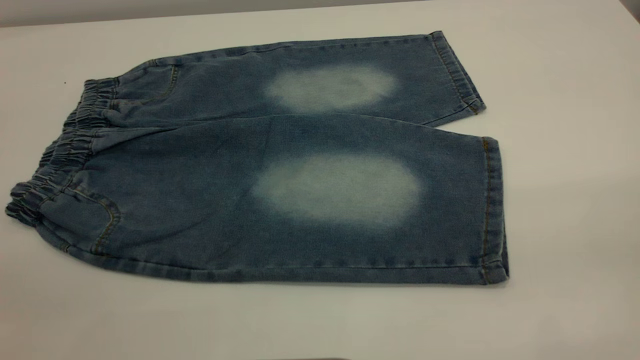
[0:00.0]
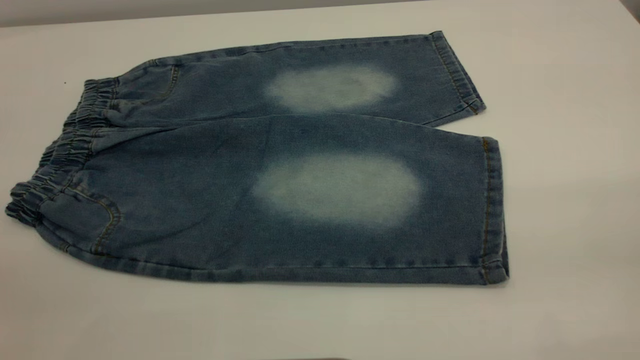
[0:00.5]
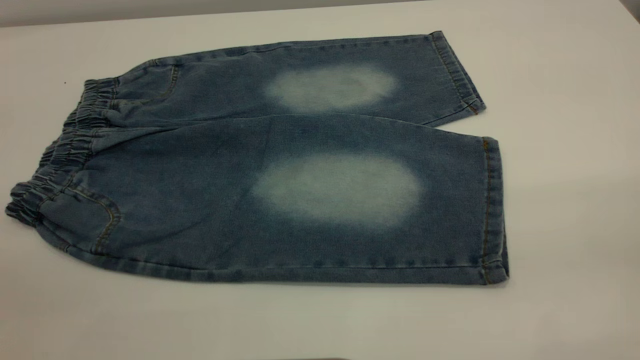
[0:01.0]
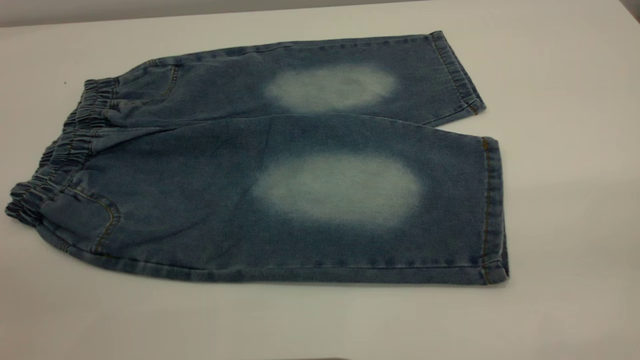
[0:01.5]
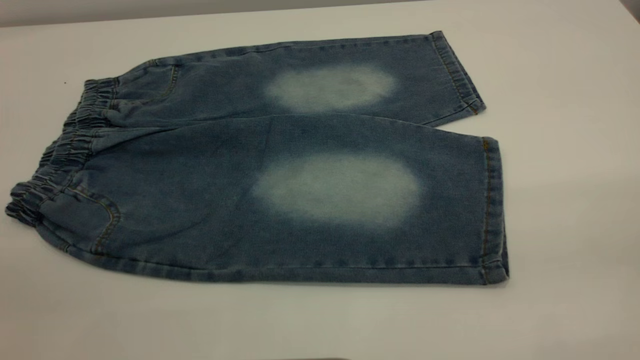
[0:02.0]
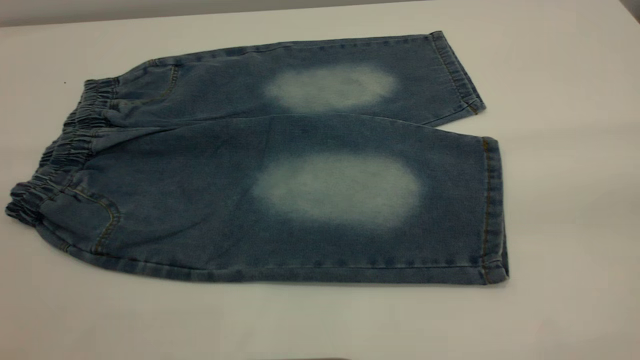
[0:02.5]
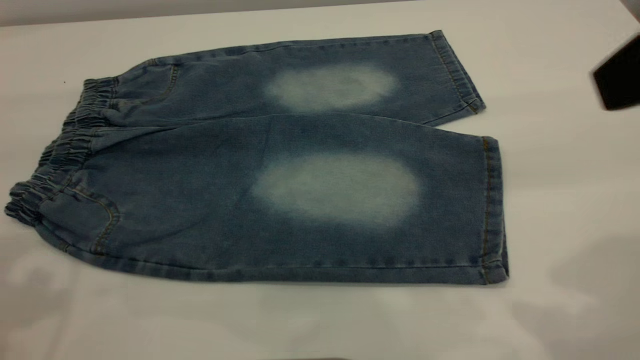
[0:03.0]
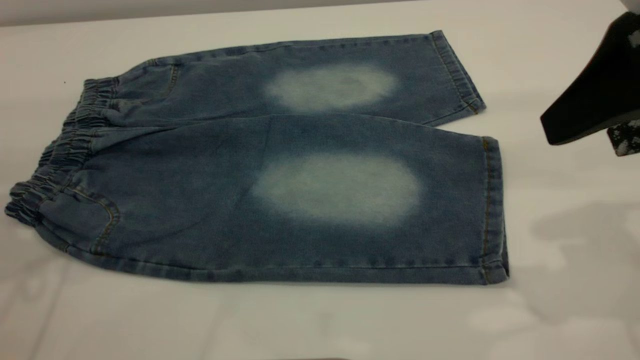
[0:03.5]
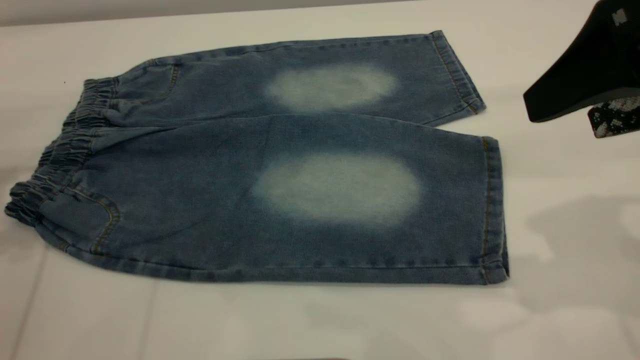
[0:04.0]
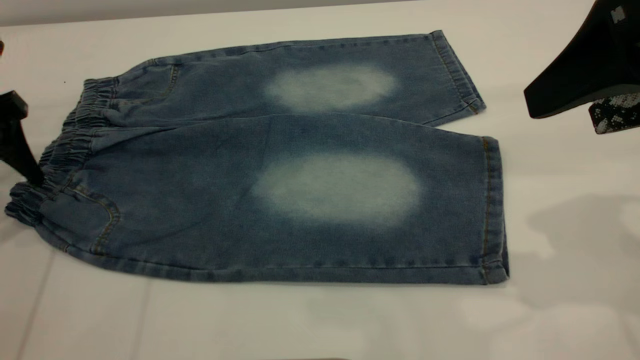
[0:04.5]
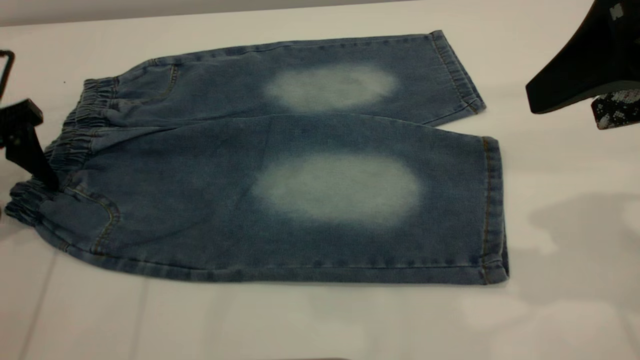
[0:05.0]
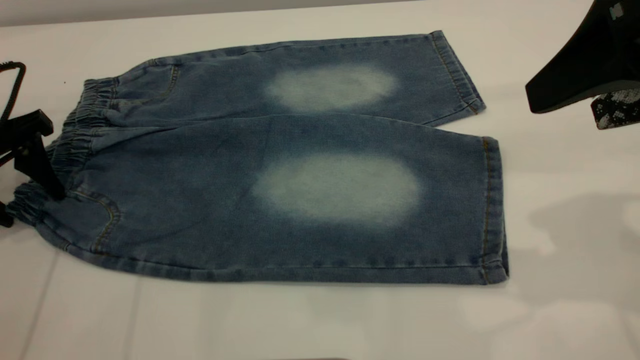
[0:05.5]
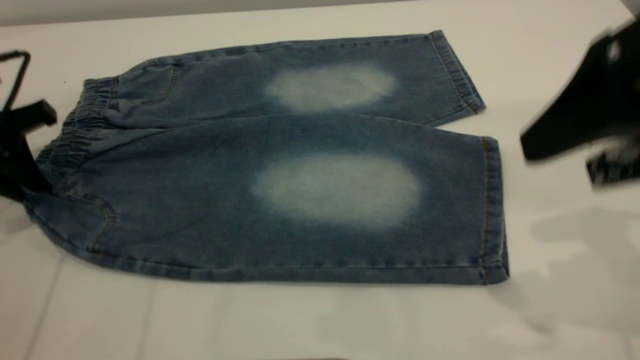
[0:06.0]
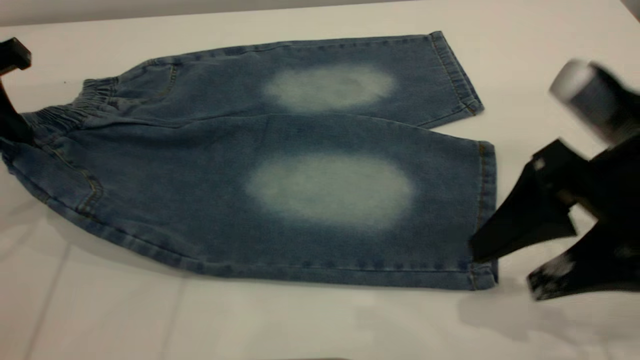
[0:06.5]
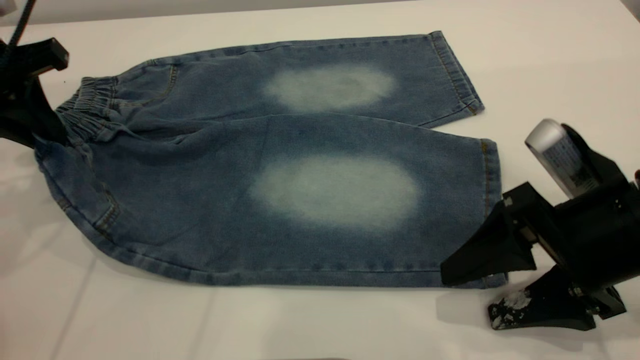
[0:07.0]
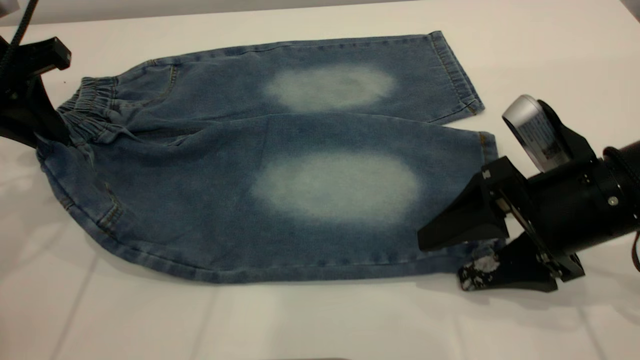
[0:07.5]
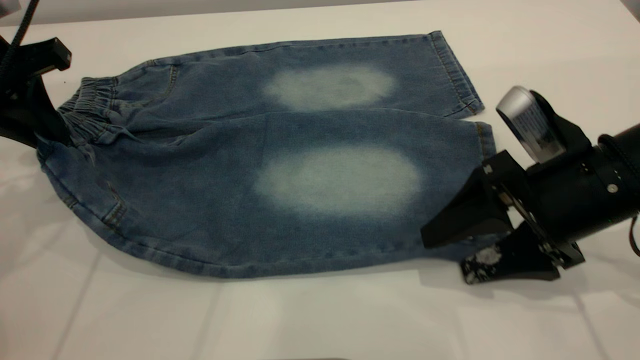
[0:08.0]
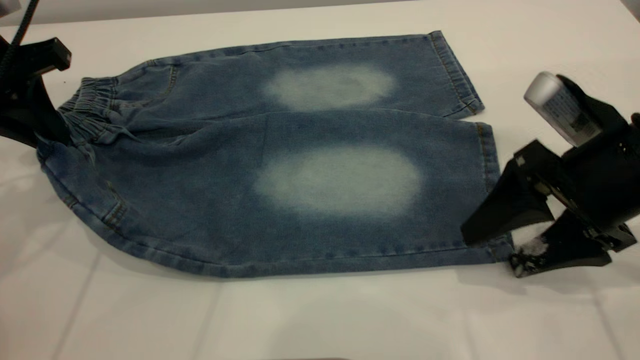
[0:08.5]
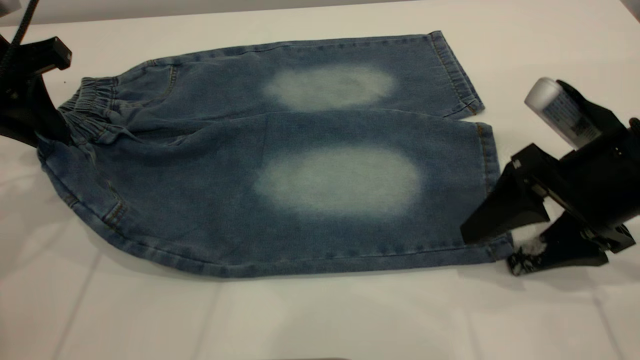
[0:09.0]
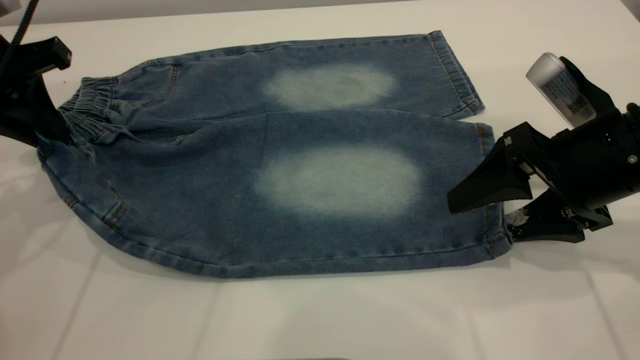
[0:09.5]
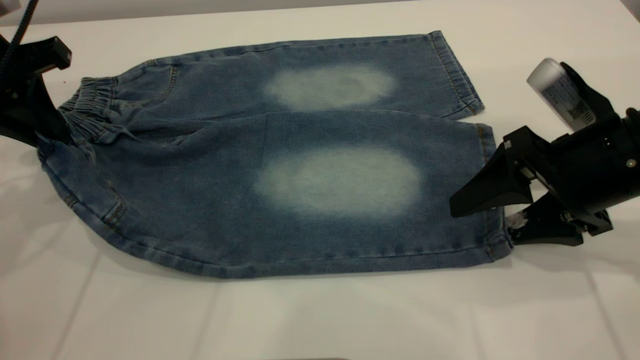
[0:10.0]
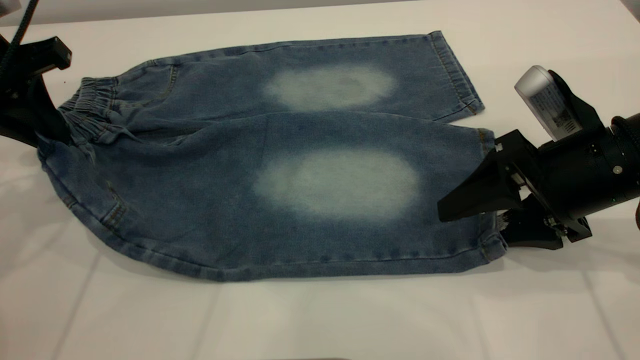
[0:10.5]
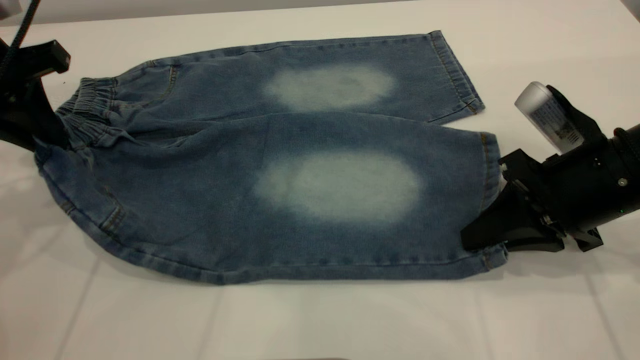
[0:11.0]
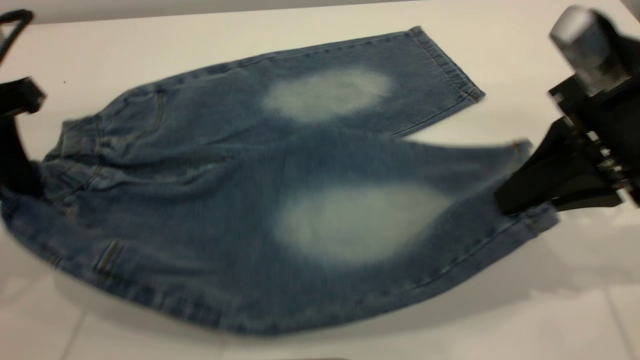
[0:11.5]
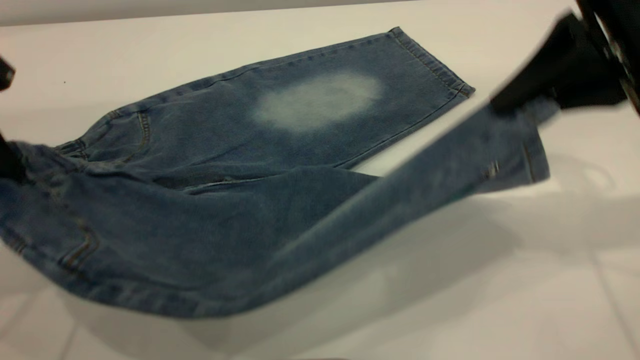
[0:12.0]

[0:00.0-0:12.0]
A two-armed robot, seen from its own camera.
0:00.0 to 0:02.0: Both grippers stay about where they are.
0:02.0 to 0:04.0: The right gripper moves forward, about 20 cm.
0:04.0 to 0:06.0: The left gripper changes place by roughly 5 cm, and closes its fingers.
0:06.0 to 0:08.0: The right gripper shifts roughly 15 cm downward. Meanwhile the left gripper heads upward, covering some 5 cm.
0:08.0 to 0:10.0: The grippers stay close to where they were, moving slightly.
0:10.0 to 0:12.0: The right gripper moves upward, about 15 cm, and closes. Meanwhile the left gripper travels backward by some 5 cm.

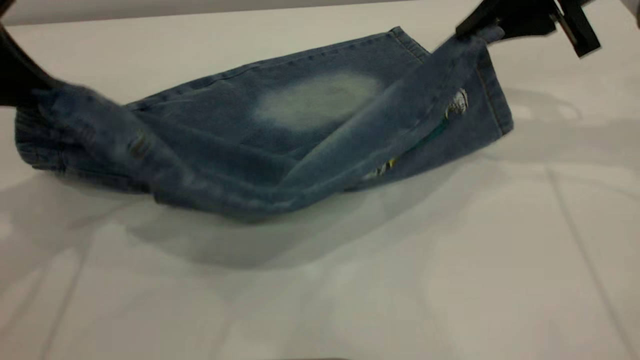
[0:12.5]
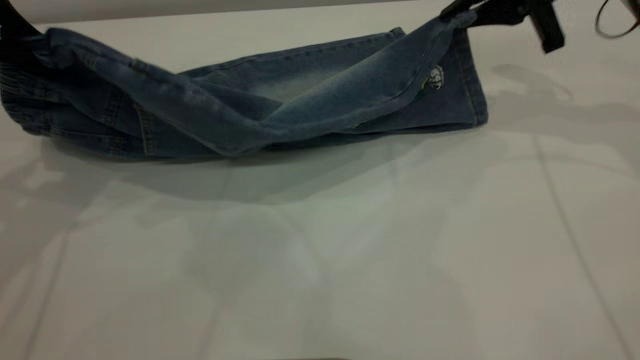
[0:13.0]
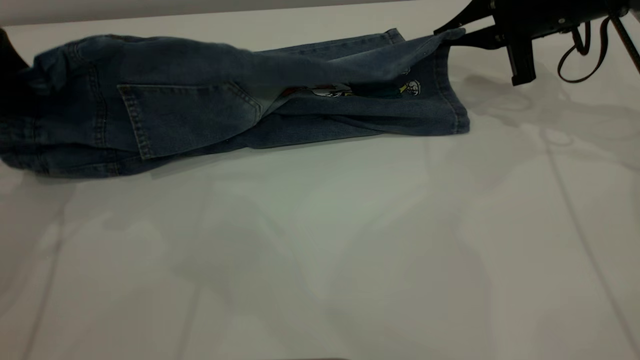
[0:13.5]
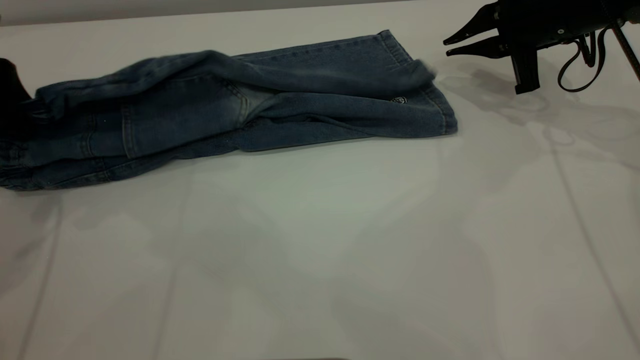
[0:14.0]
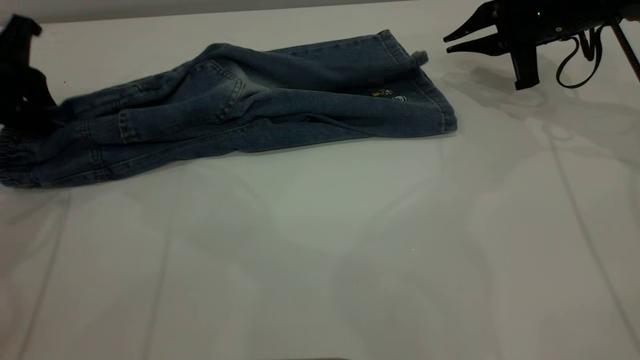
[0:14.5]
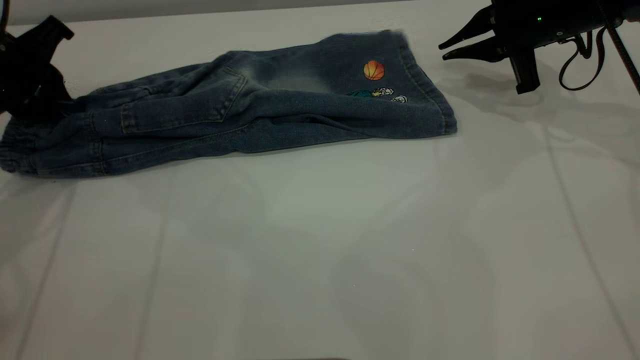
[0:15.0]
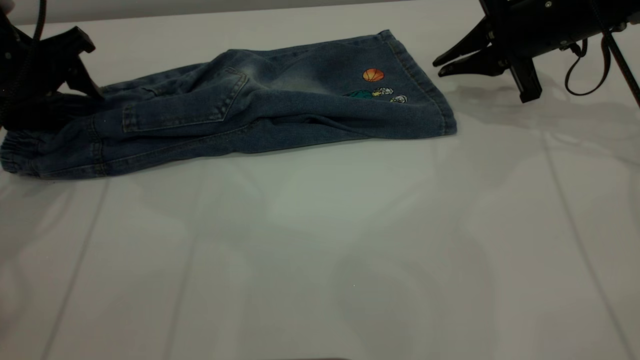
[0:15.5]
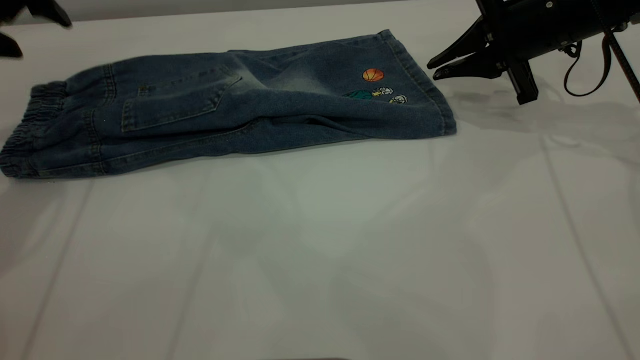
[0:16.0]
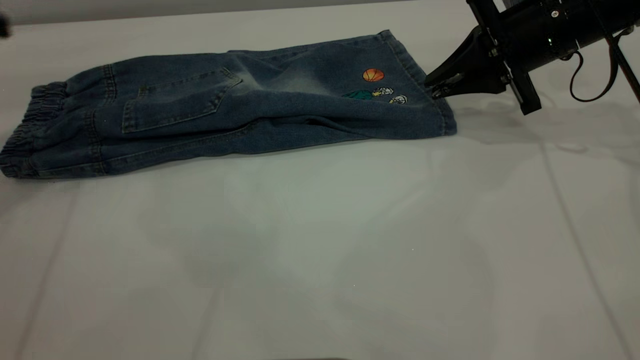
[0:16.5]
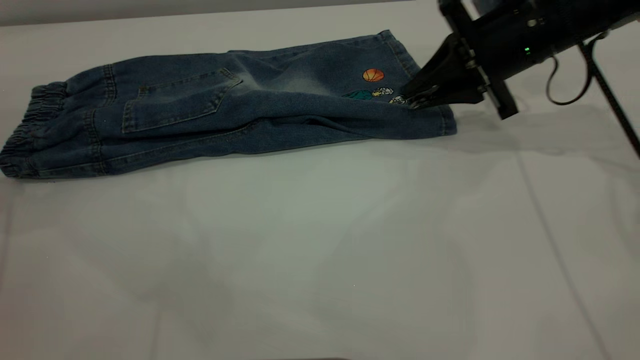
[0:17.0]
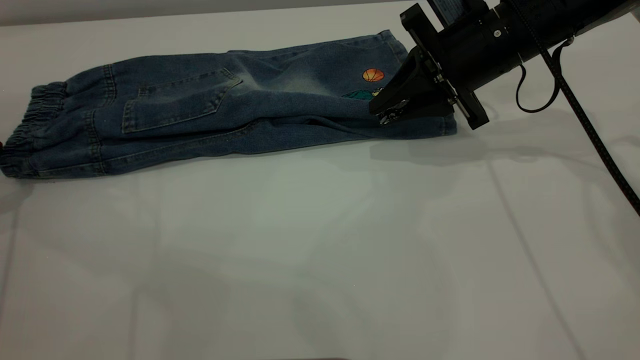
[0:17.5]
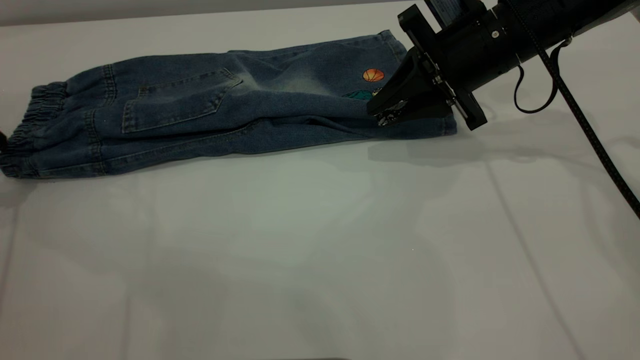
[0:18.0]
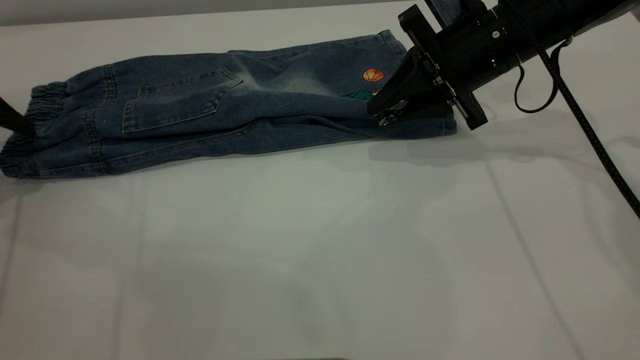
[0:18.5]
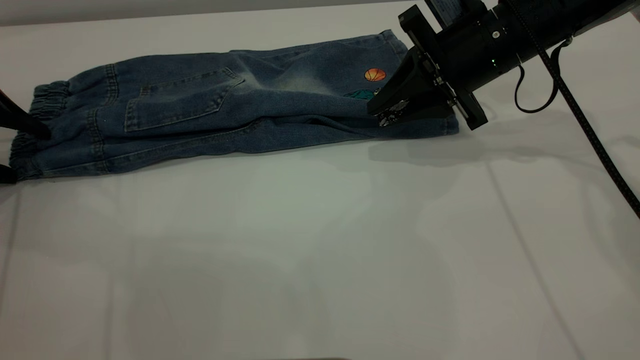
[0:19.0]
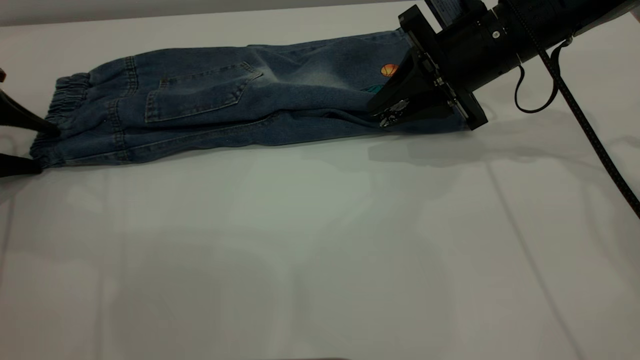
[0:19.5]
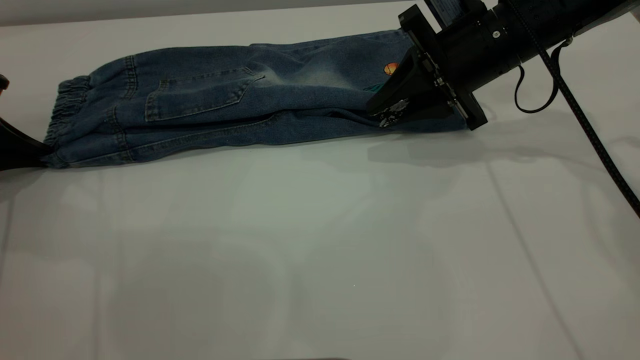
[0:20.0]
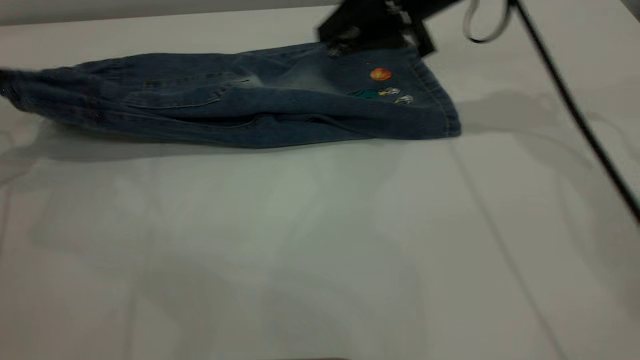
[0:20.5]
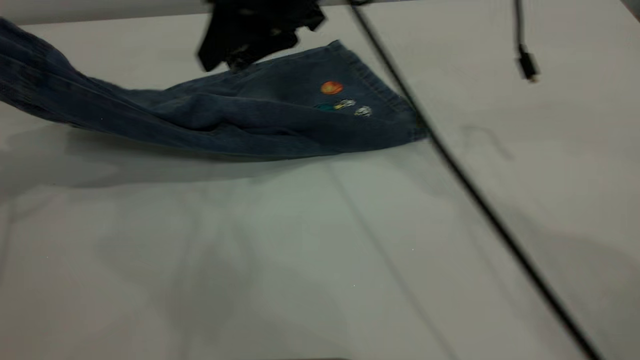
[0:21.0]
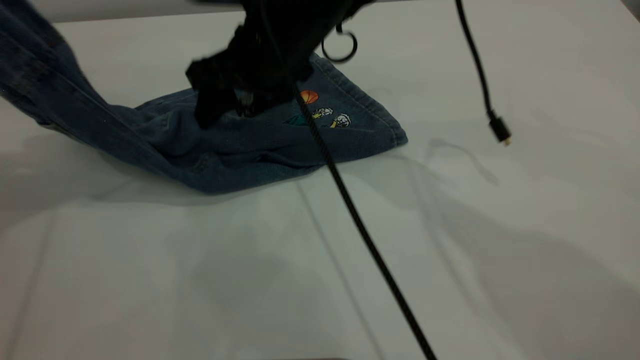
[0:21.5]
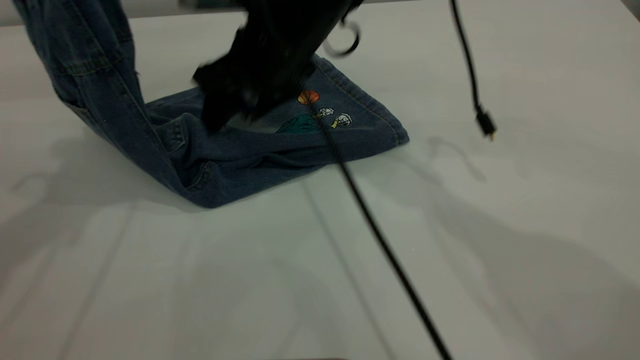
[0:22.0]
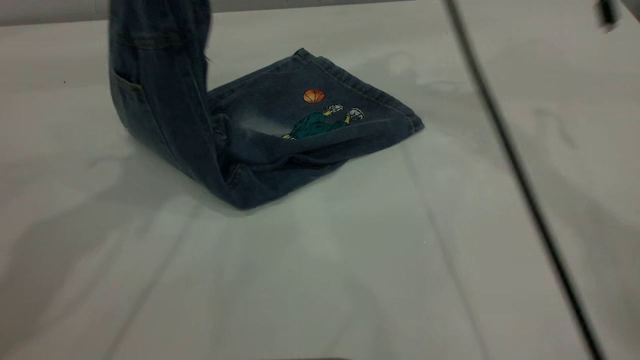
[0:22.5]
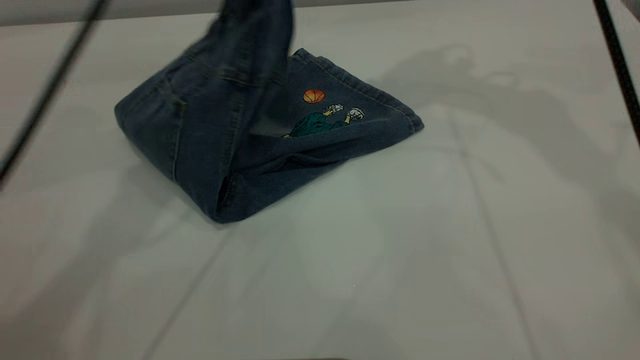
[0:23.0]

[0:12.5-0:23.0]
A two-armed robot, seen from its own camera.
Step, 0:12.5 to 0:16.0: Fold the bottom of the pants upward.
0:12.5 to 0:14.5: Both grippers move downward and forward, about 10 cm.
0:14.5 to 0:16.5: The left gripper shifts about 10 cm upward, and opens its fingers.
0:16.5 to 0:19.0: The right gripper shifts about 5 cm to the left; the left gripper is displaced downward and to the left by about 15 cm.
0:19.0 to 0:21.0: The left gripper is displaced upward by approximately 20 cm, and closes its fingers. Meanwhile the right gripper goes roughly 20 cm to the left and upward.
0:21.0 to 0:23.0: The right gripper goes approximately 20 cm to the right and upward, while the left gripper moves to the right, roughly 25 cm.
